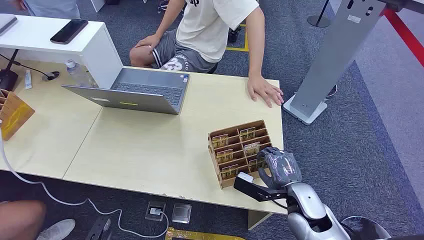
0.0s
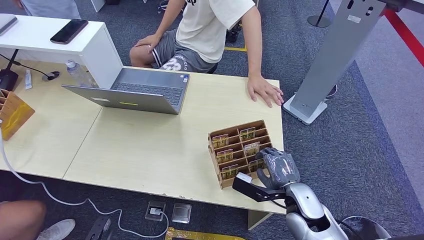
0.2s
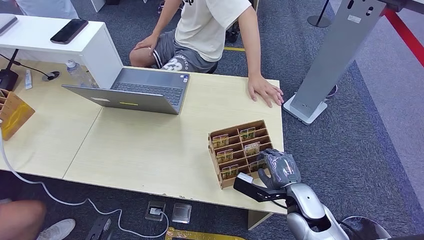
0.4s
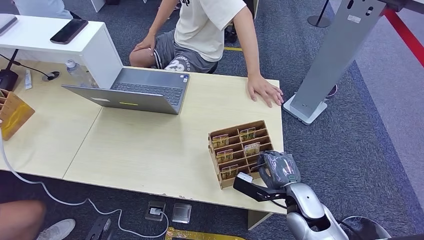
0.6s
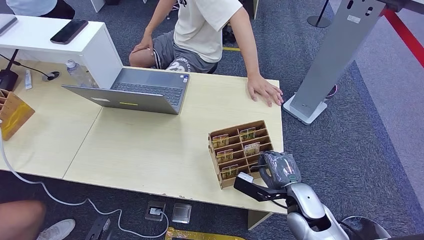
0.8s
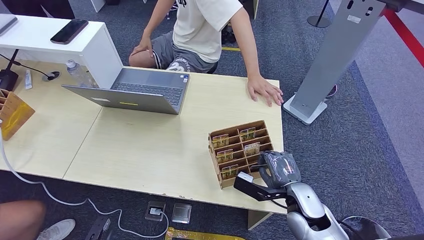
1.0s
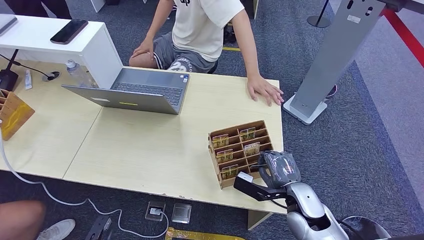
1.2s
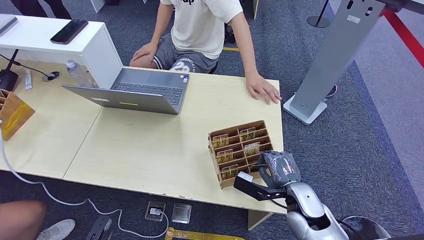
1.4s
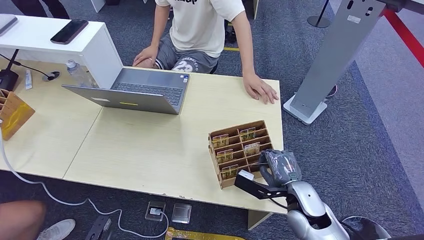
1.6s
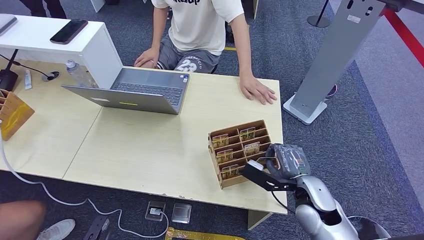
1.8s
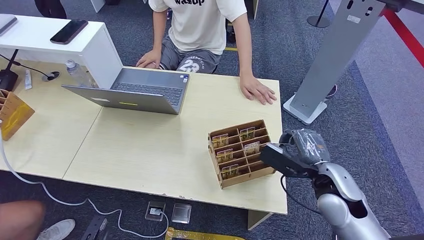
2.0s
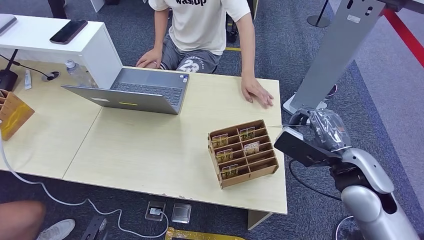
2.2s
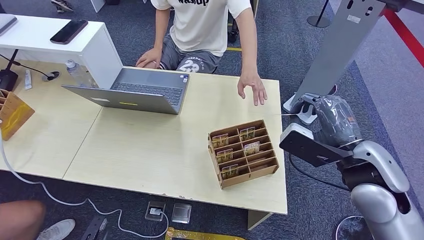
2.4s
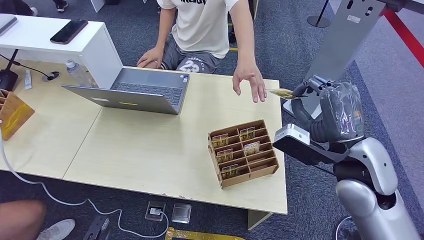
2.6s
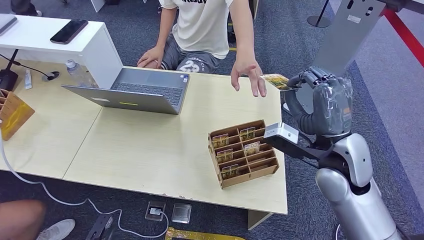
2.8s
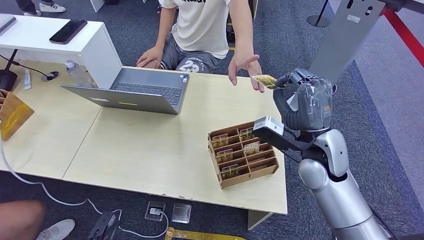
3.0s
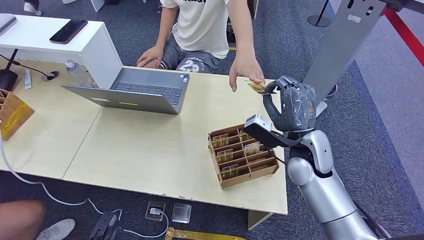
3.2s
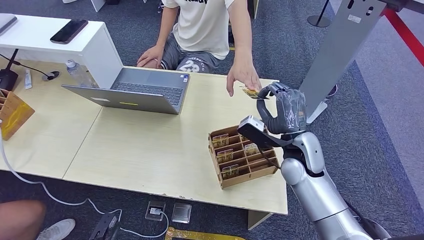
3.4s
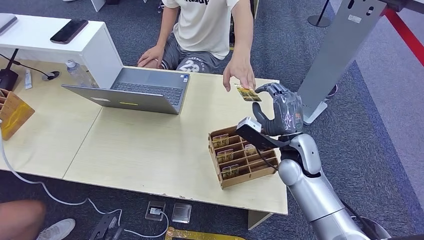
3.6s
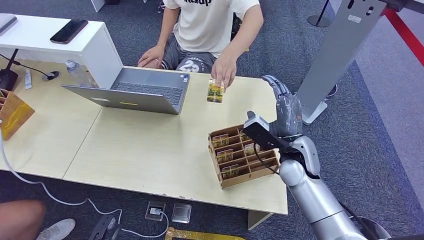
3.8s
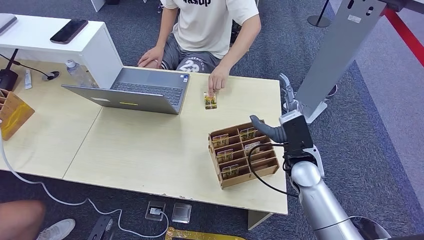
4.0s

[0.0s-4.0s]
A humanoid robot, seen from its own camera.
Step, 0.0s to 2.0s: Pick up the key card from the card box.
Step, 2.4s to 4.0s: Hand the key card to the target.
1.4s to 2.6s: The right hand moves upward, about 20 cm.
2.6s to 4.0s: The right hand moves downward, forward and to the left, about 15 cm.
